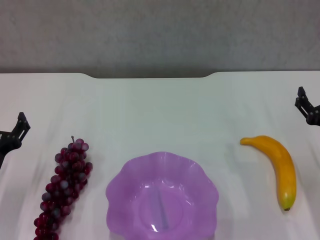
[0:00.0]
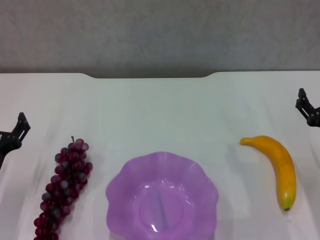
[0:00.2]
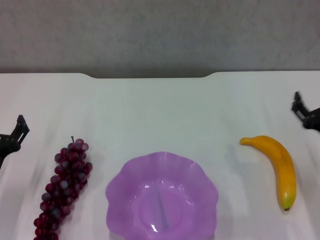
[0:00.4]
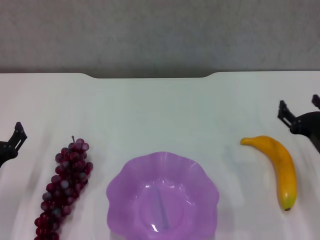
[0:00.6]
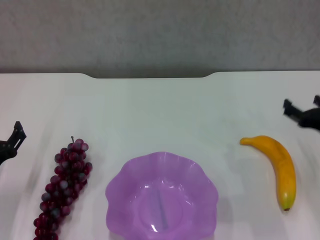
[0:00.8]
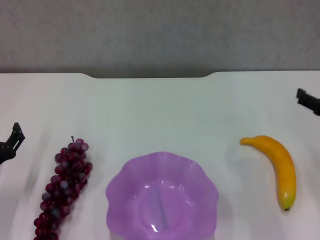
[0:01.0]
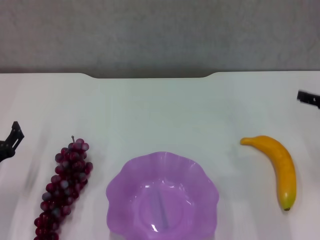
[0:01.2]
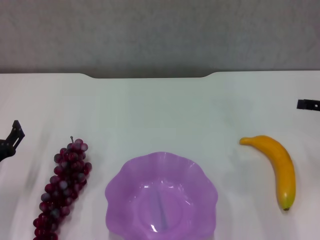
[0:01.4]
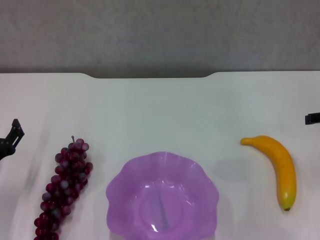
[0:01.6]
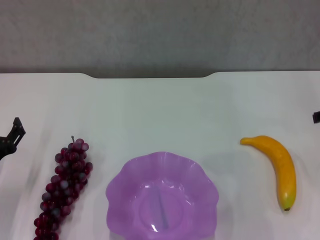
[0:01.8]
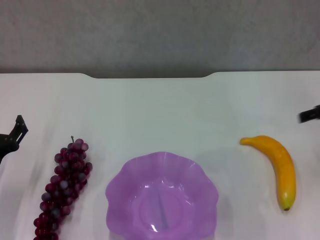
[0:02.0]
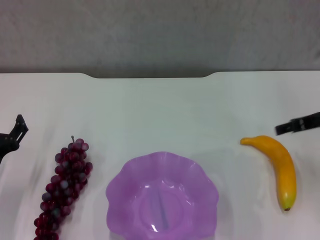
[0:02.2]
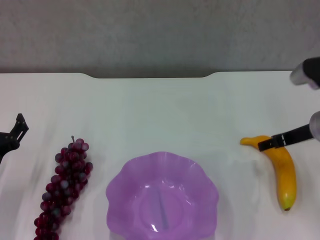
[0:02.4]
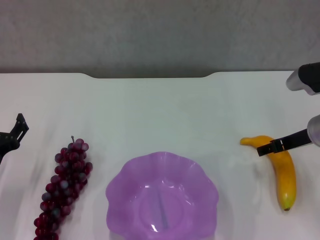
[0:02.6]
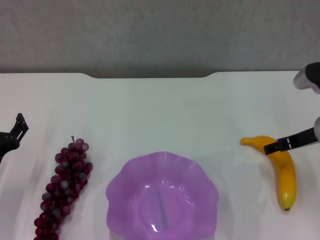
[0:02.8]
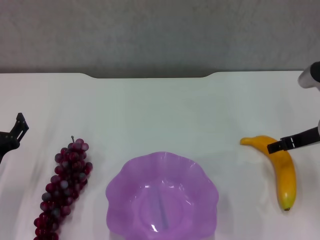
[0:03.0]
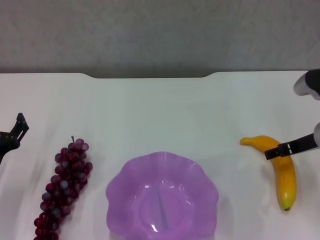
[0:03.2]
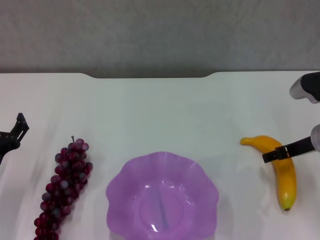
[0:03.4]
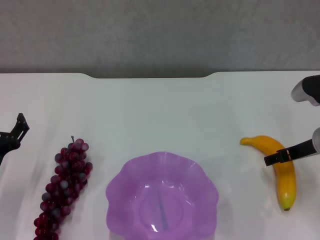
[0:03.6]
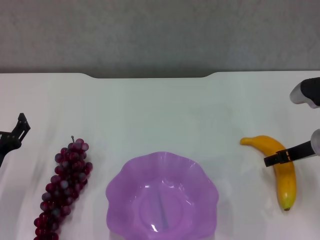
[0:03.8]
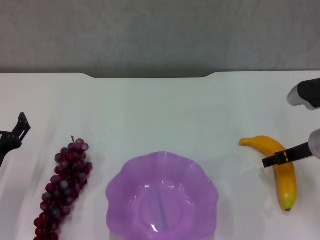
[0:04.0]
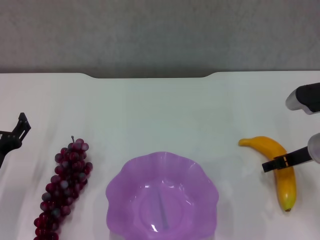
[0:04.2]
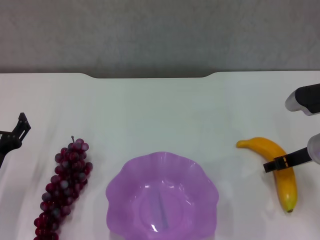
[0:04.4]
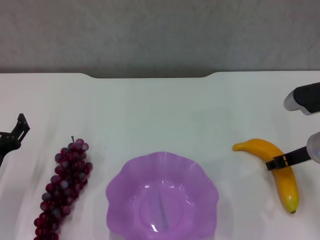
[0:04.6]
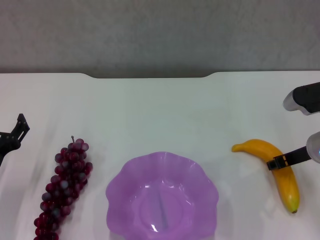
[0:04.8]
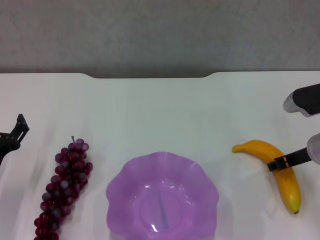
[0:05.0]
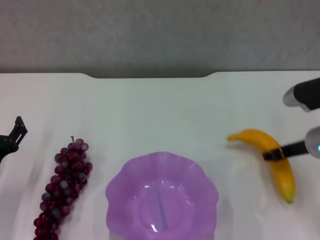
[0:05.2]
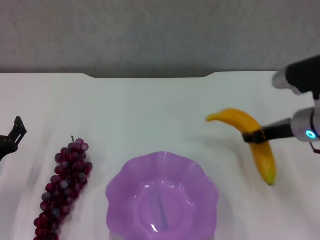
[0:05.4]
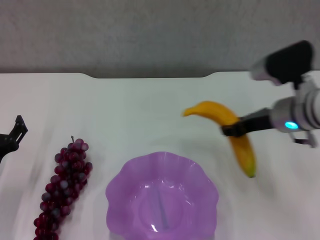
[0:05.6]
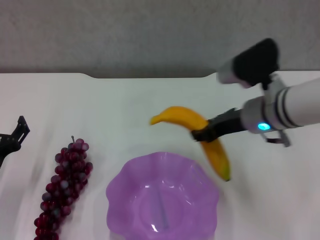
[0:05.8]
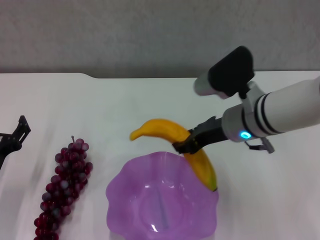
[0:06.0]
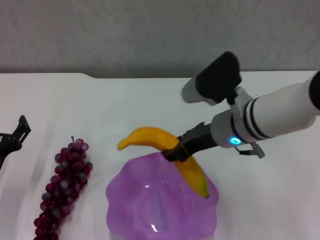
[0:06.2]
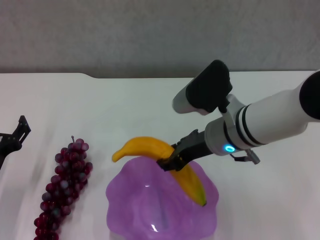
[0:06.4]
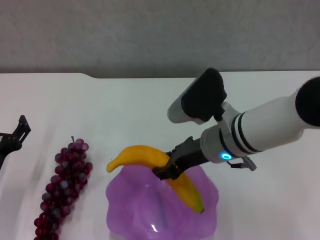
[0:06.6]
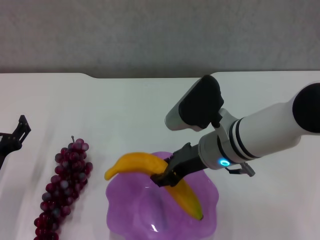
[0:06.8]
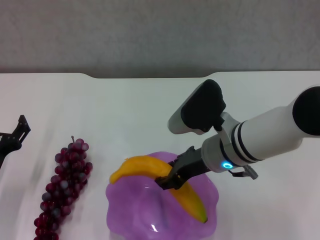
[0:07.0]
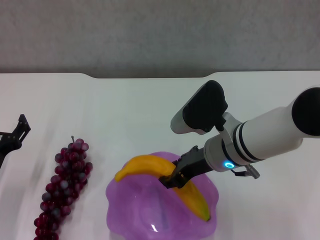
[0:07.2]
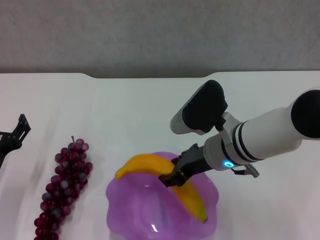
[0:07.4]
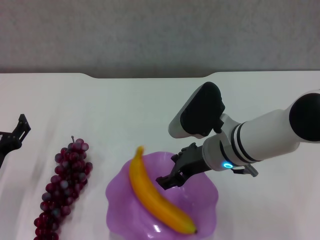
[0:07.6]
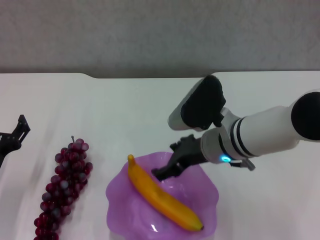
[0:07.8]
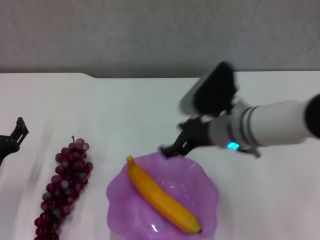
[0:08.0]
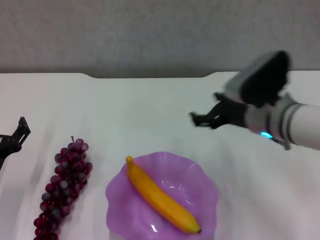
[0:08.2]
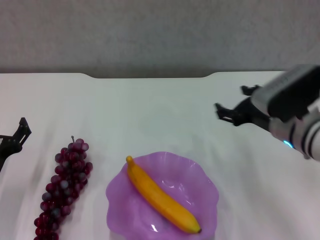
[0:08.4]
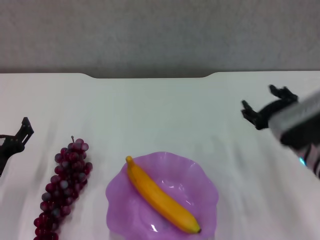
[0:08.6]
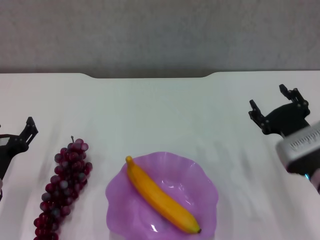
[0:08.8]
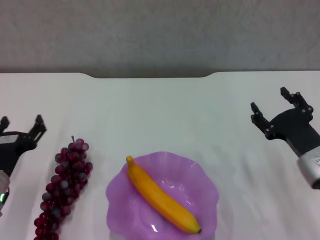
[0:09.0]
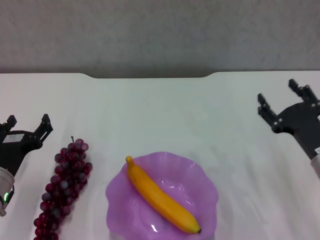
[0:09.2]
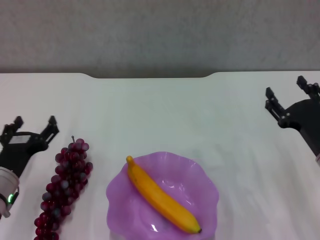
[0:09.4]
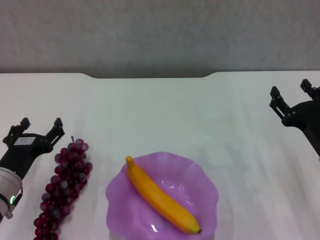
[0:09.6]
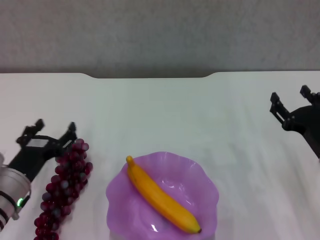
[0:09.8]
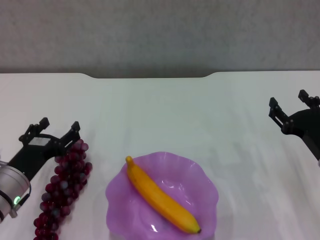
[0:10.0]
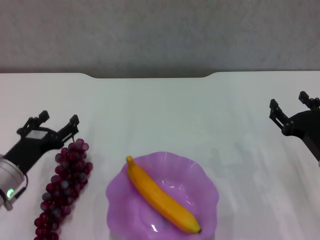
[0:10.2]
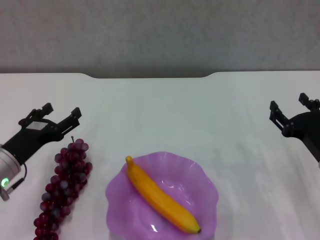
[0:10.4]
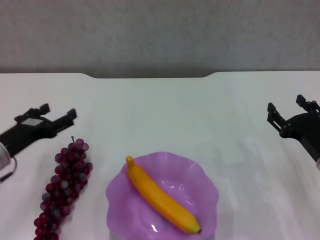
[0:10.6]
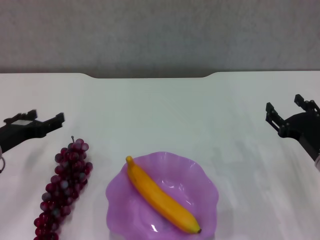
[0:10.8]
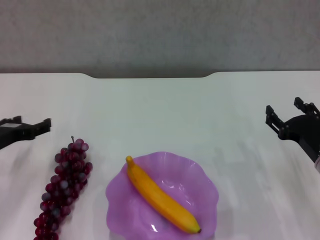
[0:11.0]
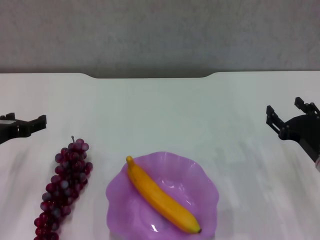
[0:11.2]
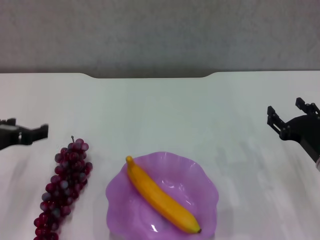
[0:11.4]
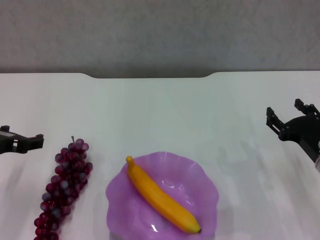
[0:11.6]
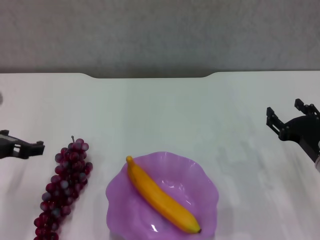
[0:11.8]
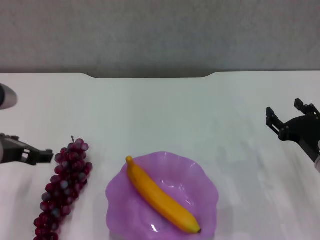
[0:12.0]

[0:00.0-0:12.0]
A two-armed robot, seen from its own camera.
Step, 0:00.0 to 0:05.0: Grasp the banana with right gripper.
Step, 0:05.2 to 0:07.8: Place the banana in the purple plate with right gripper.
0:00.0 to 0:01.6: The right gripper moves upward, forward and to the right, about 15 cm, and opens up.
0:01.6 to 0:03.0: The right gripper shifts approximately 10 cm to the left and downward.
0:03.0 to 0:04.4: The grippers move only a little.
0:04.4 to 0:06.0: The right gripper shifts approximately 15 cm to the left and upward, and closes.
0:06.0 to 0:07.6: The right gripper shifts by approximately 5 cm.
0:07.6 to 0:09.0: The right gripper moves to the right and downward, roughly 15 cm, and opens.
0:10.4 to 0:12.0: The left gripper heads upward, covering about 10 cm.

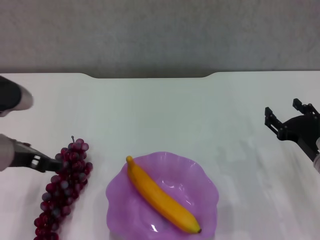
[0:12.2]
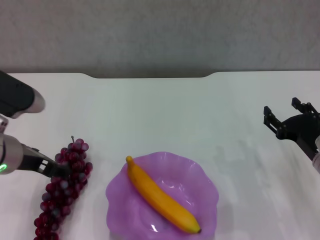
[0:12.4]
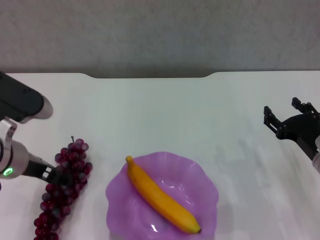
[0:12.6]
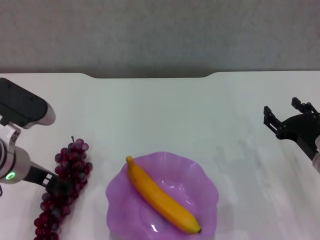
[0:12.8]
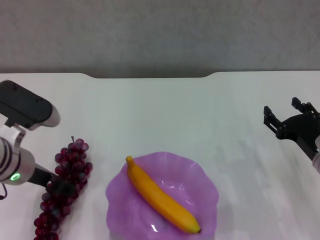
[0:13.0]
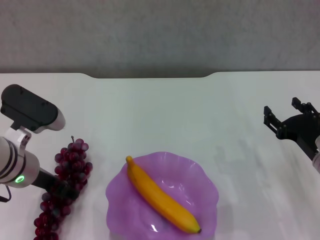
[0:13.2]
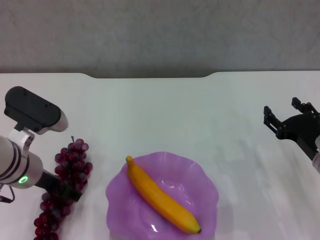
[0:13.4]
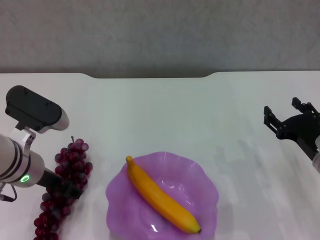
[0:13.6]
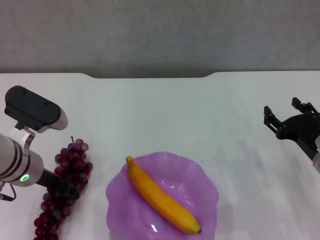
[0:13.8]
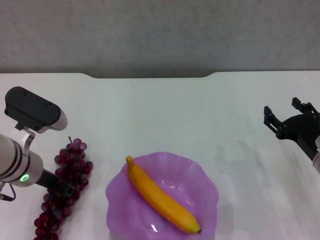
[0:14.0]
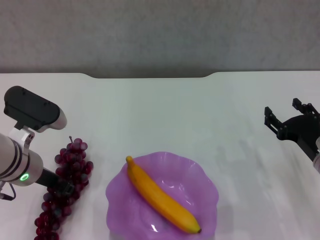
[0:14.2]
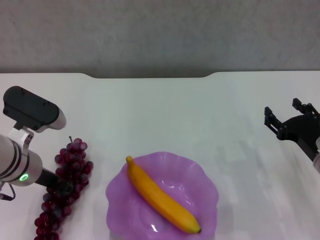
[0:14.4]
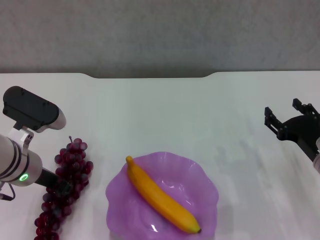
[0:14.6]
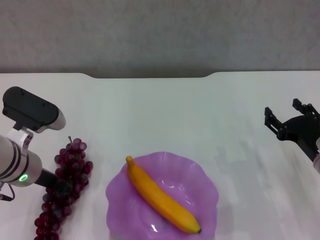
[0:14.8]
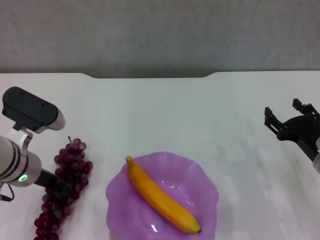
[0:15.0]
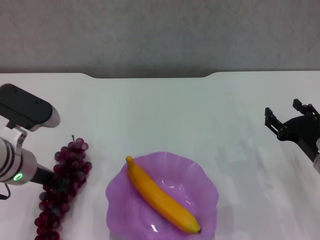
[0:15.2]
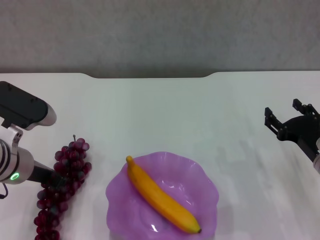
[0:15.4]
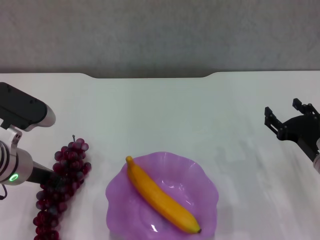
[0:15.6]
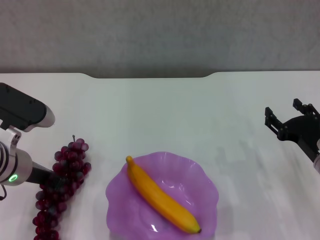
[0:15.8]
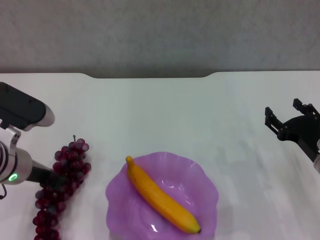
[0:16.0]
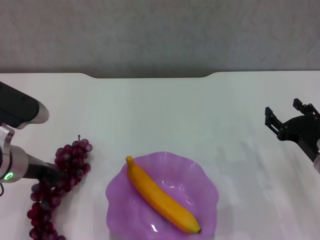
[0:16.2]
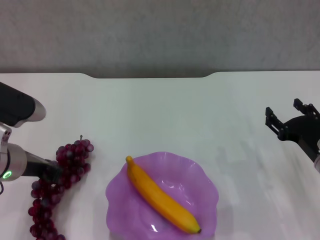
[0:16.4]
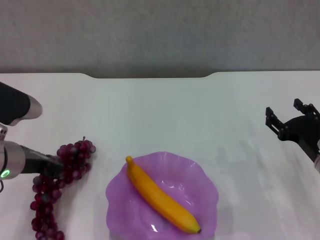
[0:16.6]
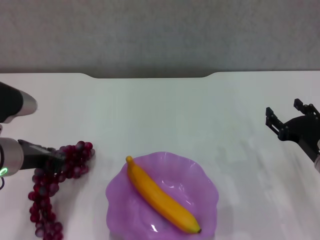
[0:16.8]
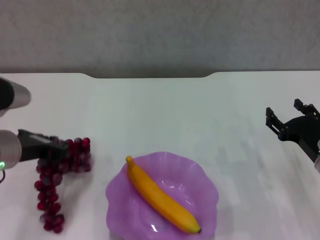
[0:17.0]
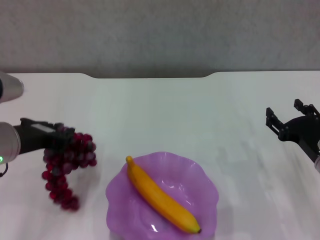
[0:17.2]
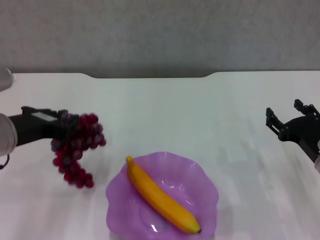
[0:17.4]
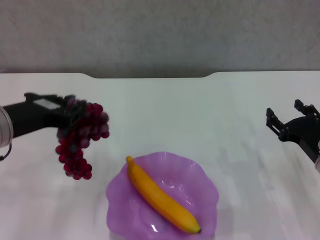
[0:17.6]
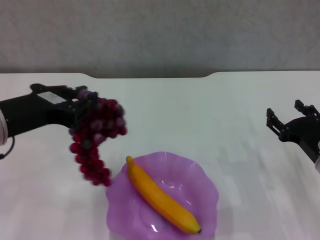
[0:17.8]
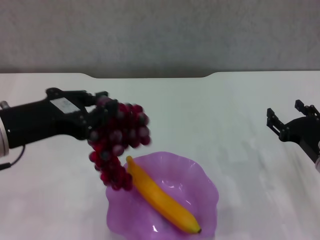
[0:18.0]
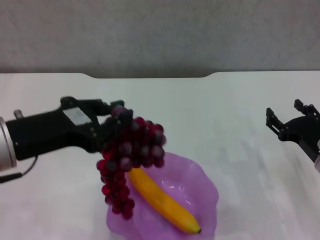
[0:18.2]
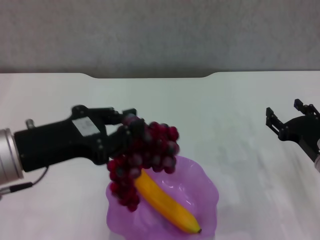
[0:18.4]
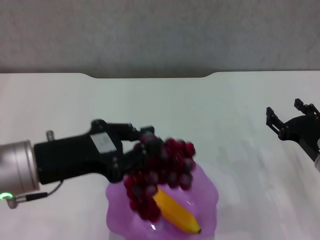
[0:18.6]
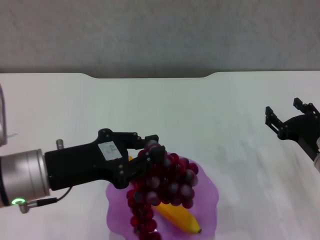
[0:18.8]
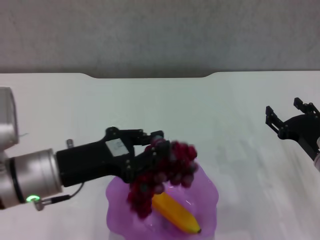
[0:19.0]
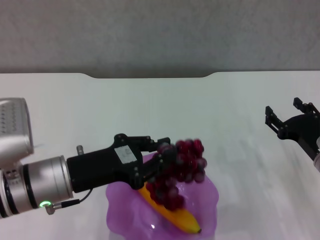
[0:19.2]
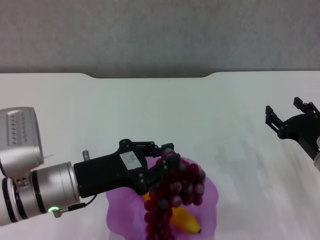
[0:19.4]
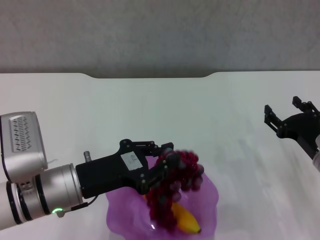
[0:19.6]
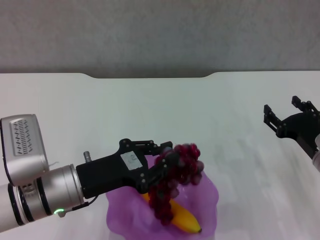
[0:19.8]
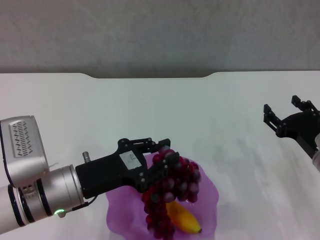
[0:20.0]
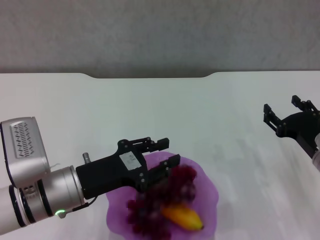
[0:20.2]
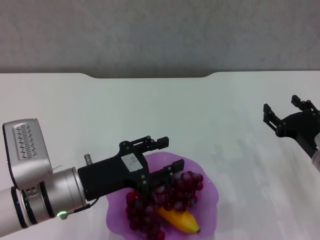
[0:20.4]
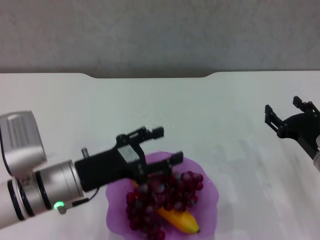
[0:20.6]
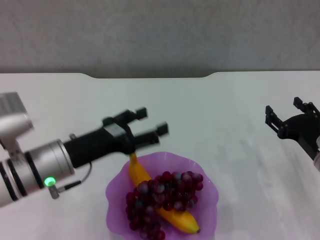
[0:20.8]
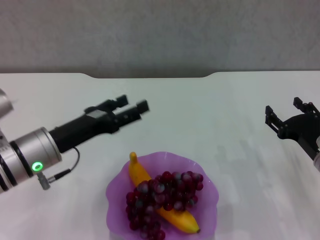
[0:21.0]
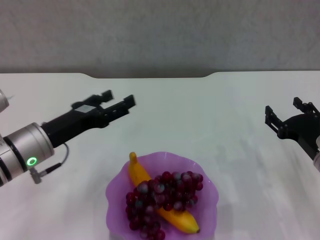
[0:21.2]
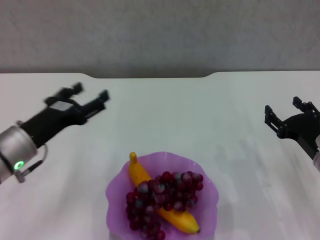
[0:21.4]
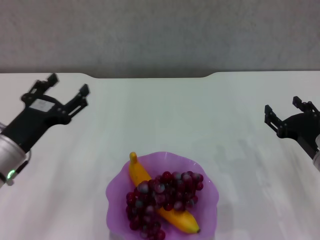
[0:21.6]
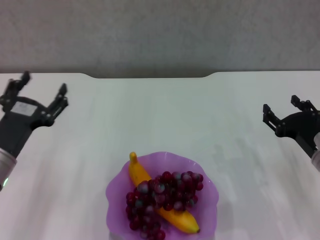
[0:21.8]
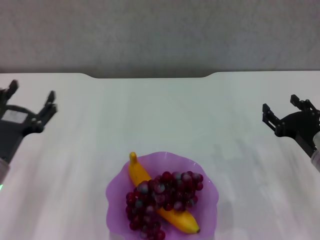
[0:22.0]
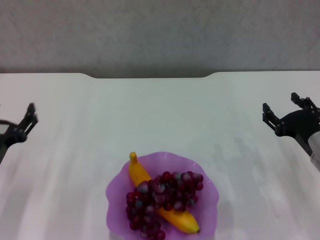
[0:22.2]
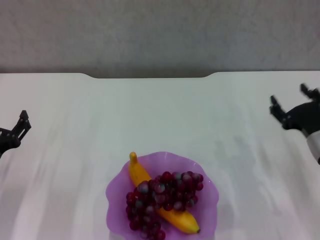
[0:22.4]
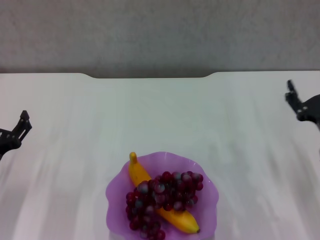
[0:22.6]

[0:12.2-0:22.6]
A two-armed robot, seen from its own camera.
Step, 0:12.2 to 0:14.6: Grasp the grape with left gripper.
Step, 0:14.8 to 0:20.2: Place the grape in the purple plate with left gripper.
0:12.2 to 0:13.6: The left gripper moves roughly 5 cm.
0:13.6 to 0:15.2: The left gripper closes up.
0:15.2 to 0:16.6: The grippers stay close to where they were, moving slightly.
0:16.6 to 0:18.2: The left gripper heads upward and backward, covering roughly 10 cm.
0:18.2 to 0:19.6: The left gripper heads downward, covering roughly 10 cm.
0:19.6 to 0:21.2: The left gripper ends up roughly 5 cm from where it was, and opens.
0:21.2 to 0:22.6: The left gripper moves to the left and downward, roughly 10 cm.
